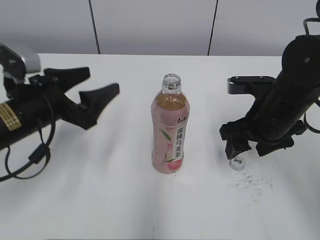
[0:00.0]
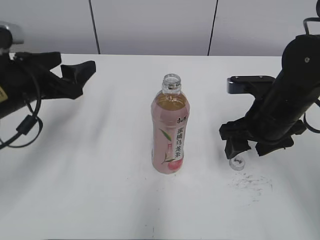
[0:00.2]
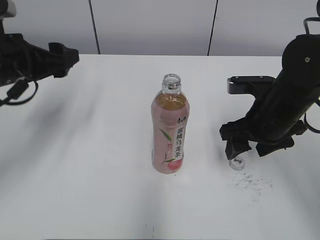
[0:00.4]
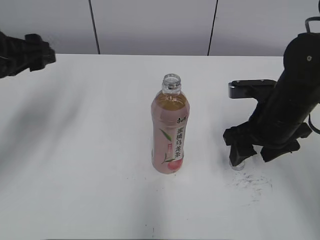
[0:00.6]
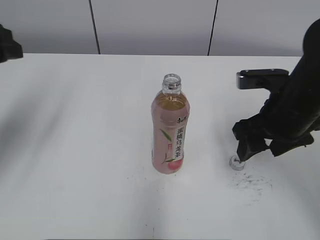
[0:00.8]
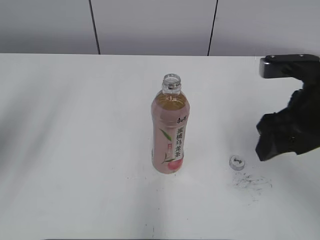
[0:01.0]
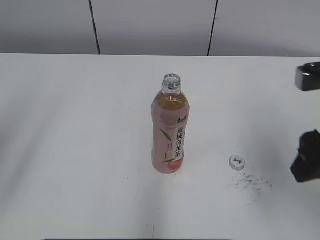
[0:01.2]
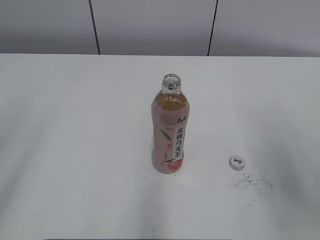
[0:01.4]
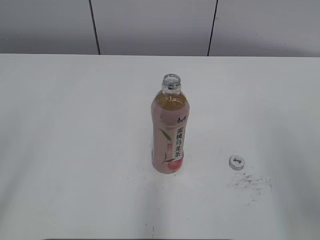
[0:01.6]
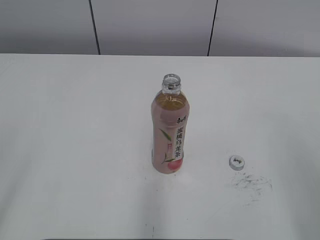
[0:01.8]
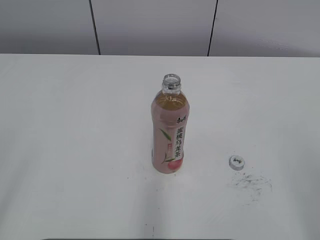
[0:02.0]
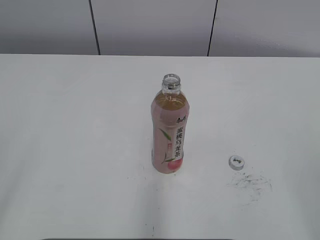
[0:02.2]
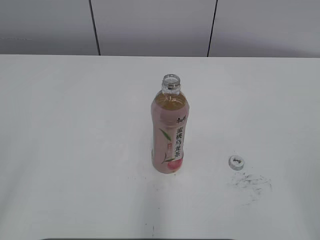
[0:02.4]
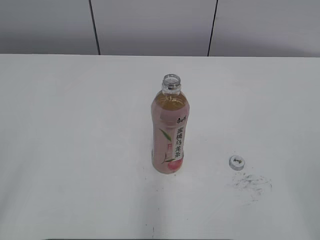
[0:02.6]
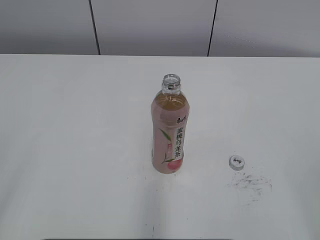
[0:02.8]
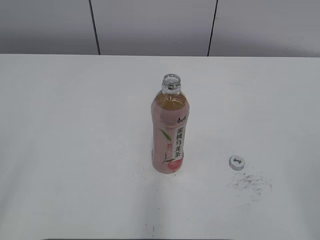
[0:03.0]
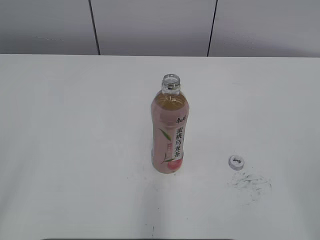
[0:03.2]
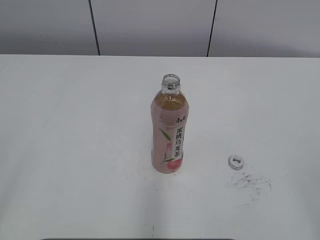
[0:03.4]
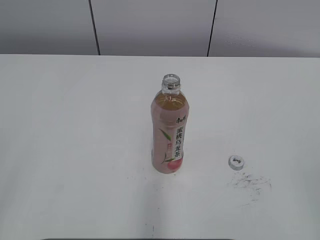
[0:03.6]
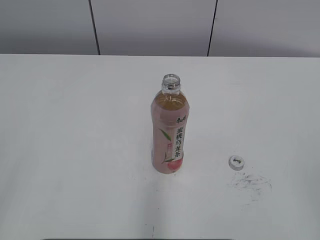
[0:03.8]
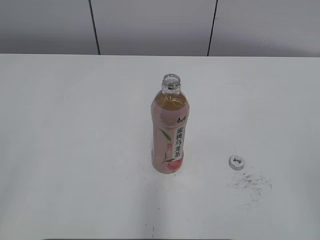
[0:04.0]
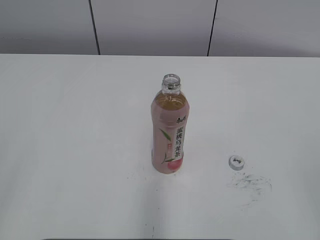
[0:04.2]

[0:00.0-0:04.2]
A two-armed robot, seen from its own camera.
0:00.0 to 0:01.4: The right gripper is displaced backward, upward and to the right by approximately 20 cm, while the left gripper is displaced backward, upward and to the left by some 30 cm.
0:01.4 to 0:02.8: The right gripper goes approximately 15 cm backward and to the right.

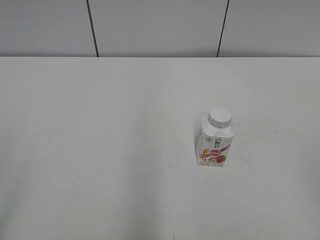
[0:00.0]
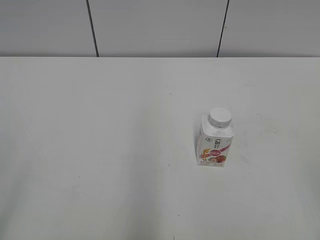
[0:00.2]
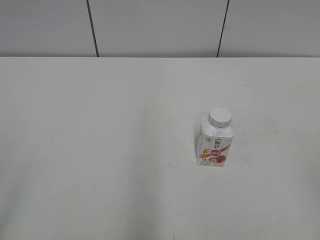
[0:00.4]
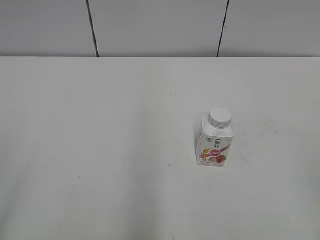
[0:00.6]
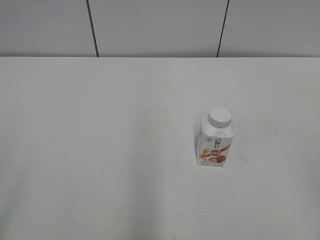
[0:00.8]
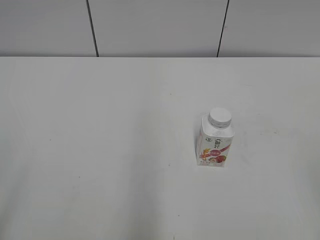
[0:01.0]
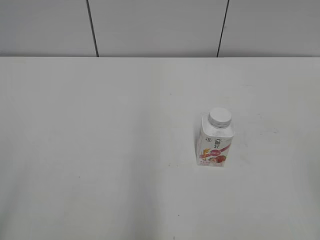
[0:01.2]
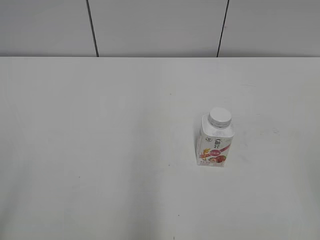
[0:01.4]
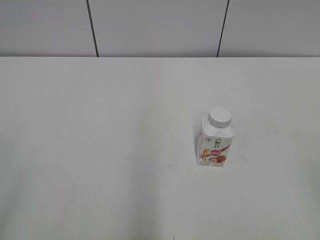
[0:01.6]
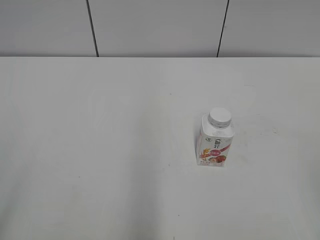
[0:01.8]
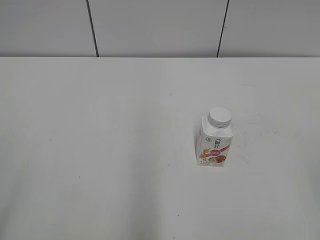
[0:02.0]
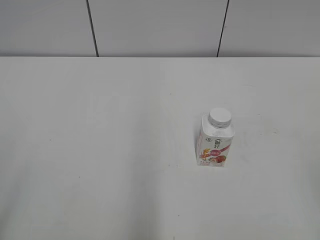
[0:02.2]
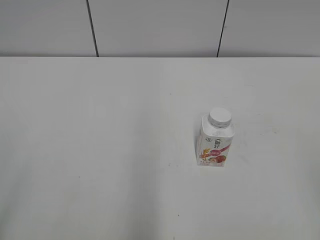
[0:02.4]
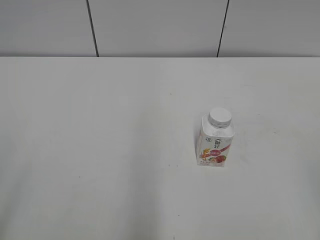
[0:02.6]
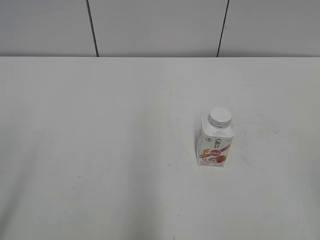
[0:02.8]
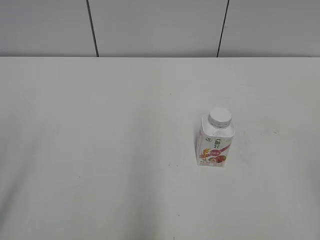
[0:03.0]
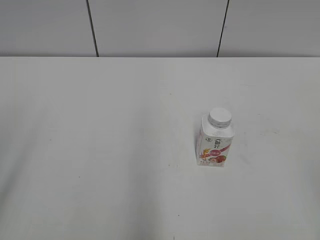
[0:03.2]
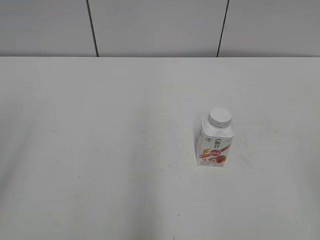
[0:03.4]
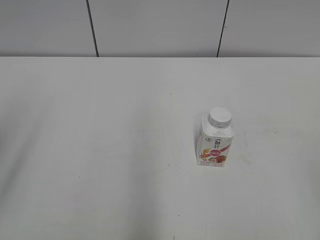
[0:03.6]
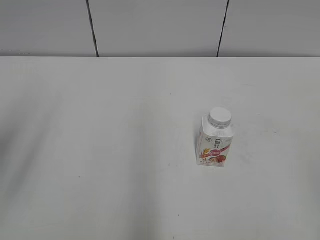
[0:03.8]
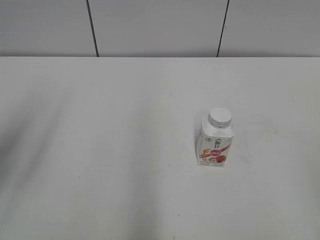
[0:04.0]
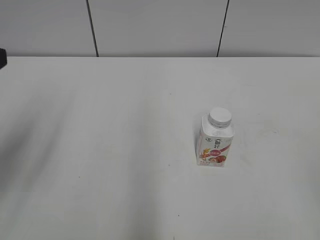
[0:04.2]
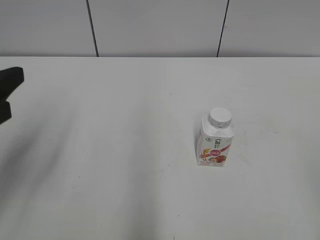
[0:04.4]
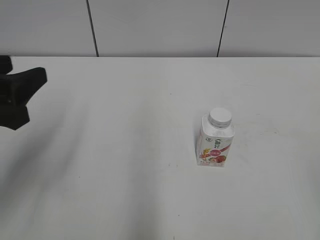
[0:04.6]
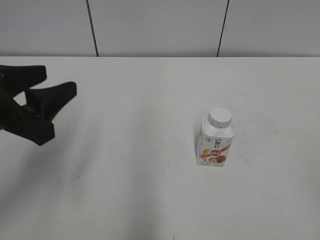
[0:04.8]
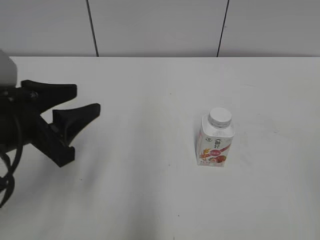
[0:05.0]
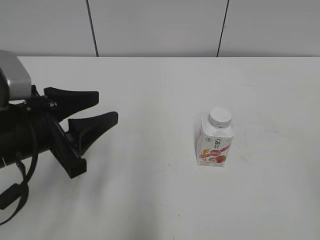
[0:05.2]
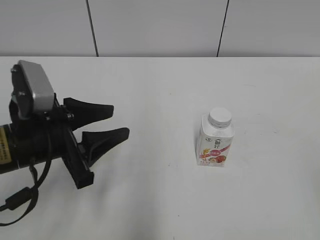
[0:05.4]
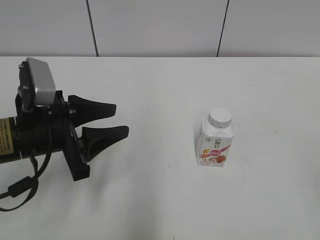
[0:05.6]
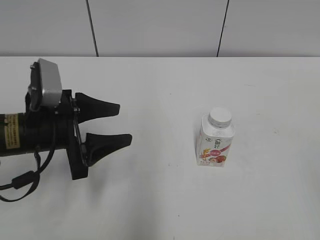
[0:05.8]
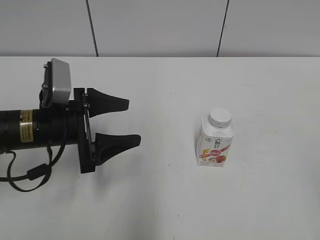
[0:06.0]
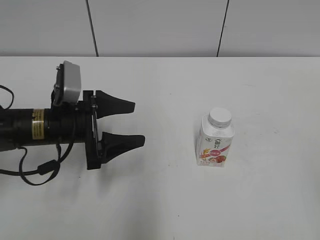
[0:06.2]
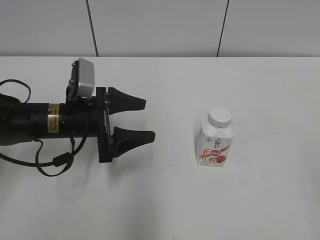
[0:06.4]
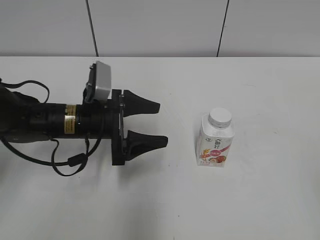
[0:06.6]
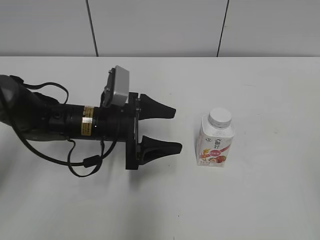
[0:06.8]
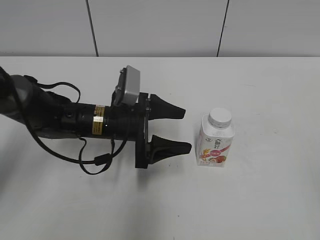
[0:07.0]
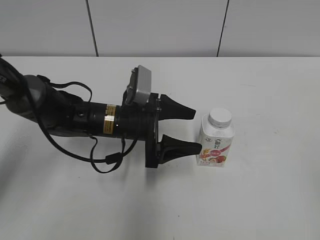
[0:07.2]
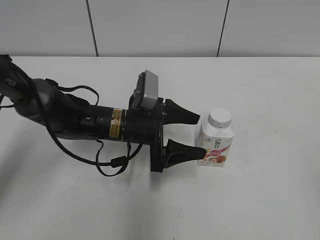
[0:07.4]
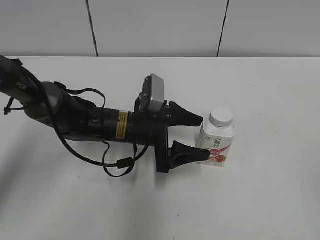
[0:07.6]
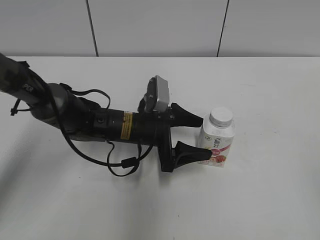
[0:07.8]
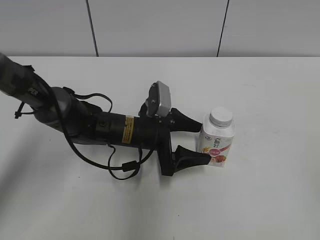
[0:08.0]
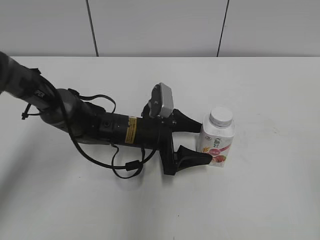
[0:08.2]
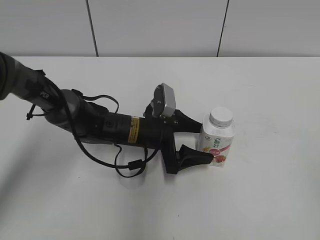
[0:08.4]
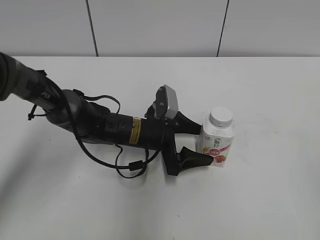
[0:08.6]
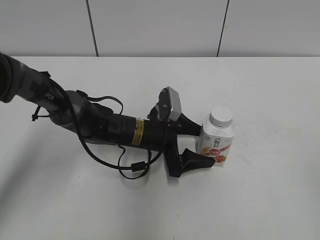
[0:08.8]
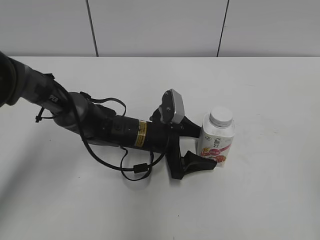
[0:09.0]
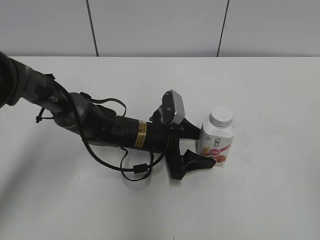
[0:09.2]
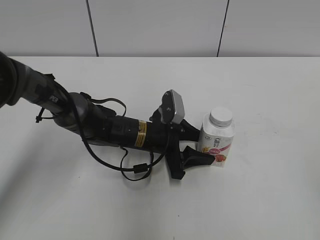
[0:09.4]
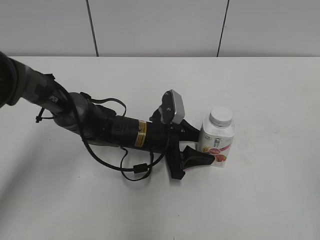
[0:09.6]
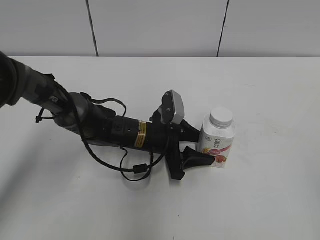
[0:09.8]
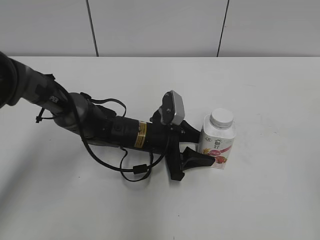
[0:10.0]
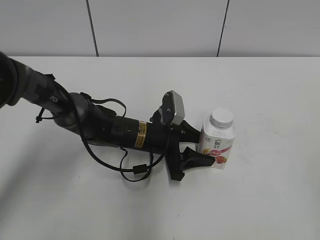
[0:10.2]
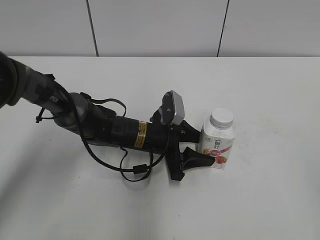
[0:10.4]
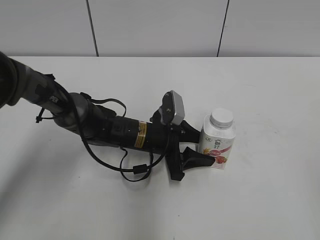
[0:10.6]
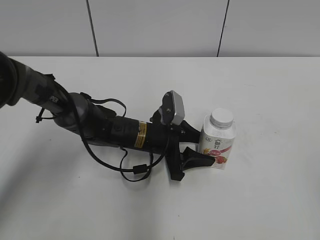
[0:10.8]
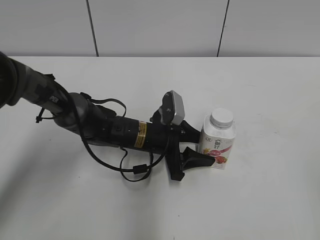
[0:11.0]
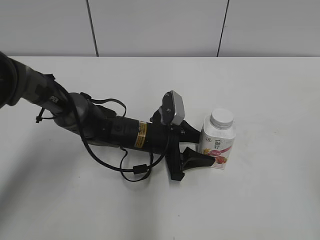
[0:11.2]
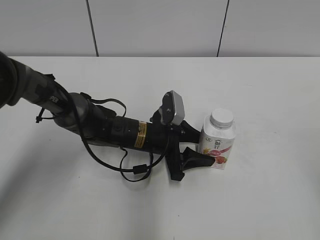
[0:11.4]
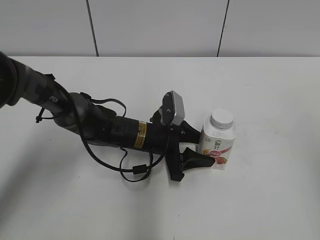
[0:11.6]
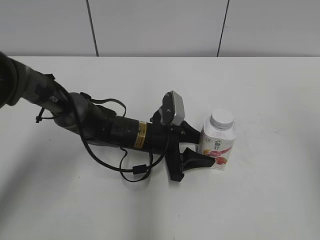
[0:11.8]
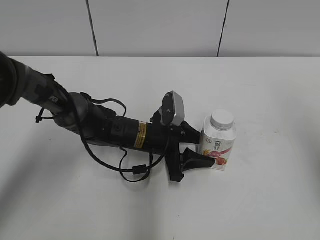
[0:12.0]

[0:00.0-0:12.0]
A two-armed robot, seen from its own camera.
Step, 0:00.0 to 0:09.6: Grab the Yili Changqing with the left hand.
0:03.0 to 0:04.4: The left gripper travels forward and downward by roughly 15 cm.
0:04.4 to 0:06.0: The left gripper moves downward, forward and to the right, approximately 15 cm, and opens its fingers.
0:06.0 to 0:07.6: The left gripper is displaced to the right, forward and downward by approximately 15 cm.
0:07.6 to 0:09.0: The left gripper ends up about 5 cm from where it was.
0:09.0 to 0:10.4: The left gripper closes its fingers.
0:10.4 to 0:12.0: The right gripper goes about 15 cm forward, and closes.

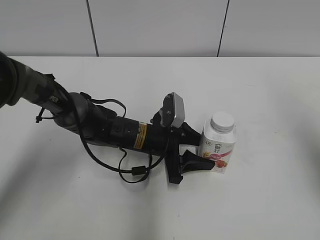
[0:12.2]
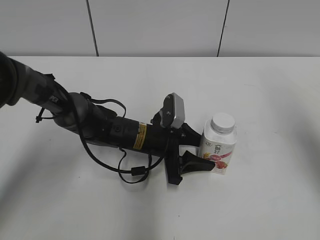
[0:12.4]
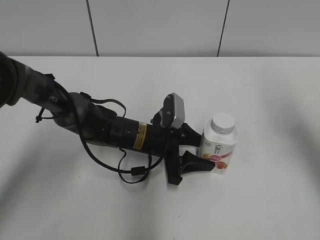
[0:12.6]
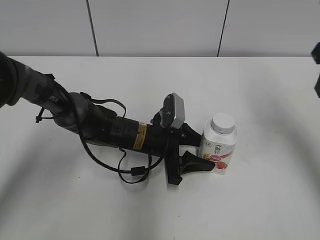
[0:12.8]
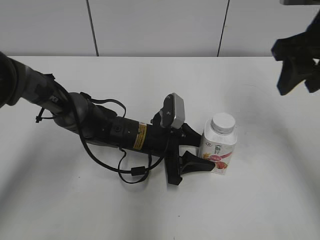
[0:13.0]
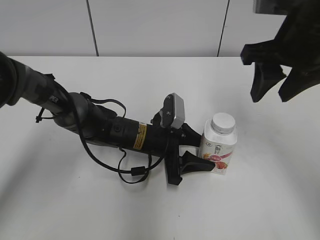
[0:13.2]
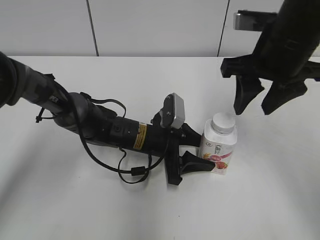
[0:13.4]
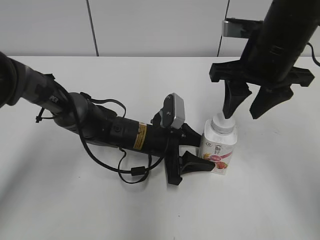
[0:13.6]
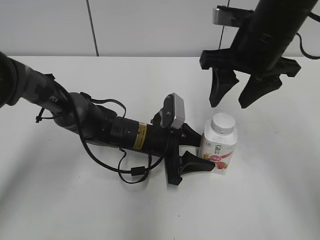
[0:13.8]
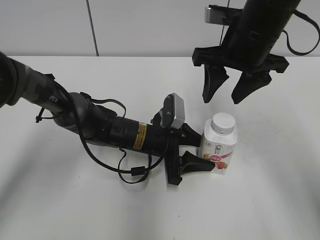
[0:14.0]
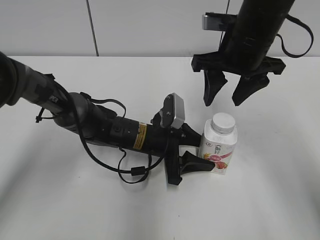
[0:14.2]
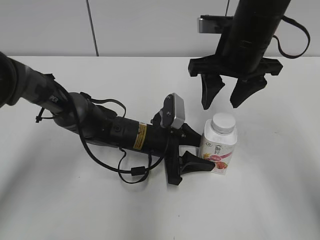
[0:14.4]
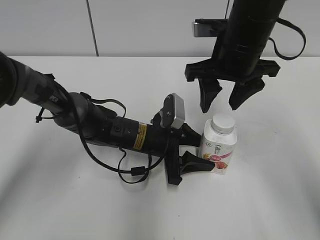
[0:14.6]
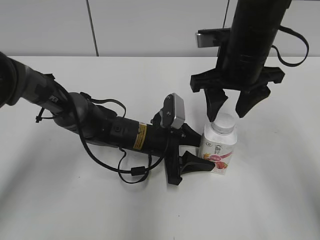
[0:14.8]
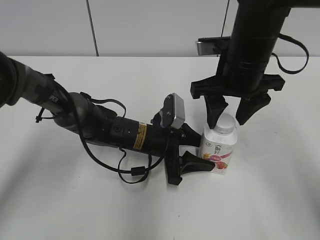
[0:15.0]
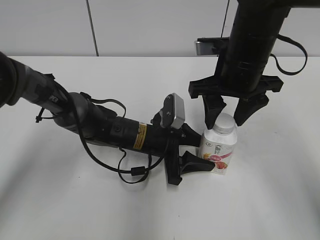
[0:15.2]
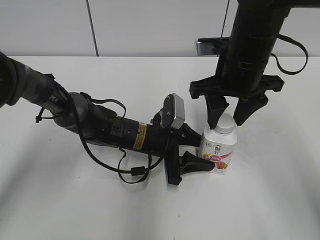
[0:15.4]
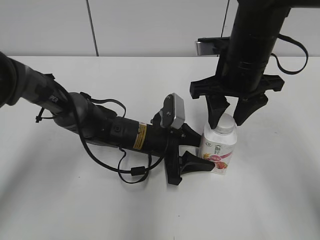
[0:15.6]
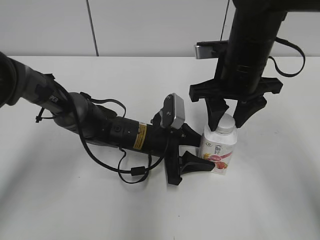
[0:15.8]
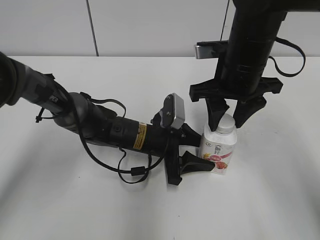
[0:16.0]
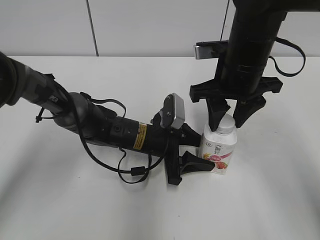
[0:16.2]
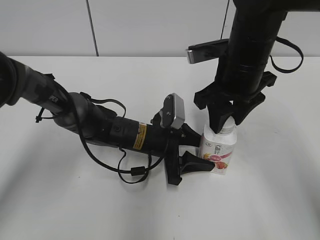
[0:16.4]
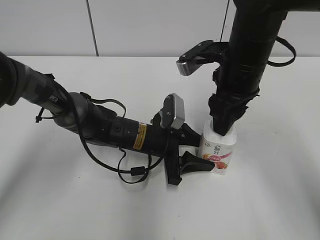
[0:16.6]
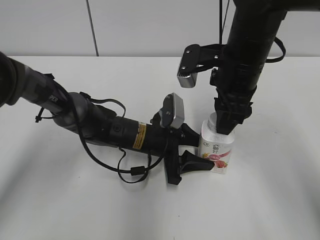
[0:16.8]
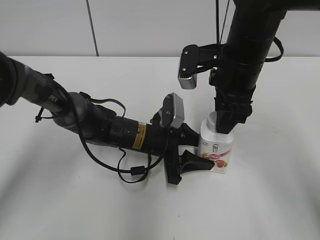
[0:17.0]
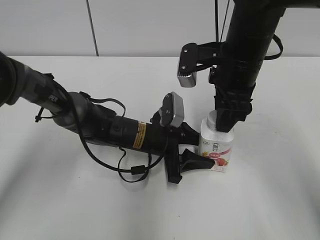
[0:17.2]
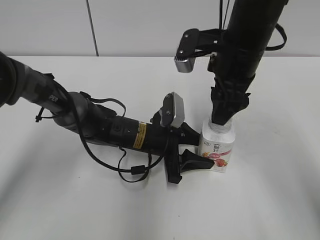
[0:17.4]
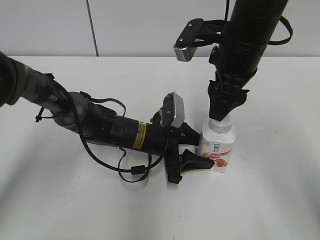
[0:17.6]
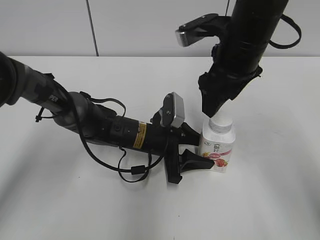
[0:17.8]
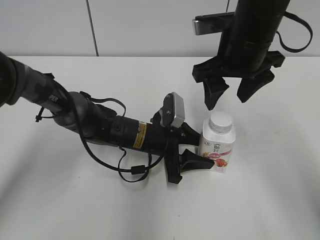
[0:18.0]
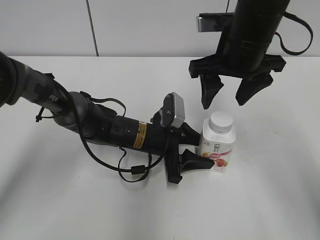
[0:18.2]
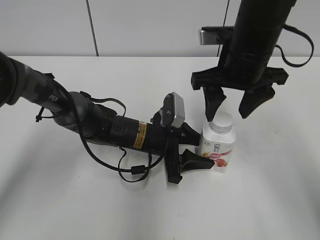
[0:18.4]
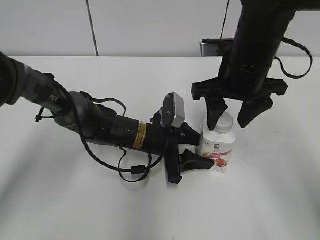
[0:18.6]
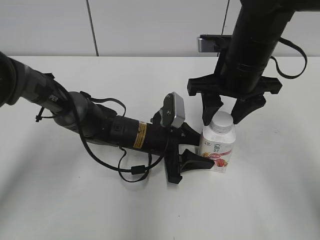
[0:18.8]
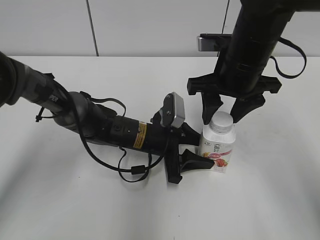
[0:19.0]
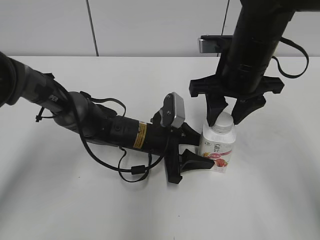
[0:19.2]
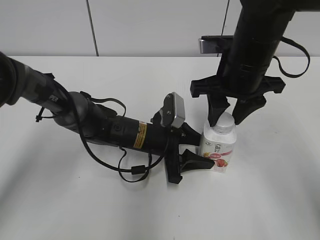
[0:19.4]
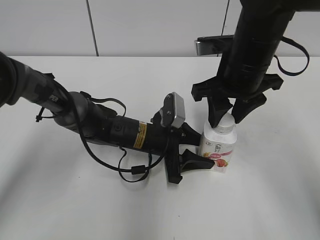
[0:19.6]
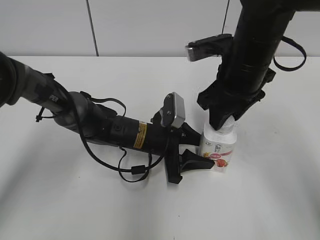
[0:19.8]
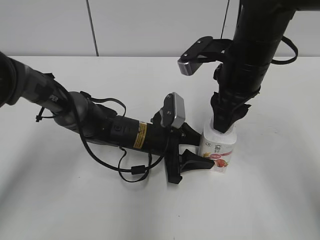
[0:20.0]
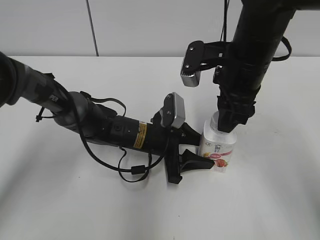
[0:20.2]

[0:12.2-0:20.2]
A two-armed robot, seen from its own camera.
0:12.2 to 0:13.8: The right gripper shifts about 25 cm to the left, forward and downward.
0:13.8 to 0:15.4: There are only small adjustments of the grippers.
0:17.0 to 0:18.6: The right gripper opens.
0:18.6 to 0:20.2: The right gripper closes up.
